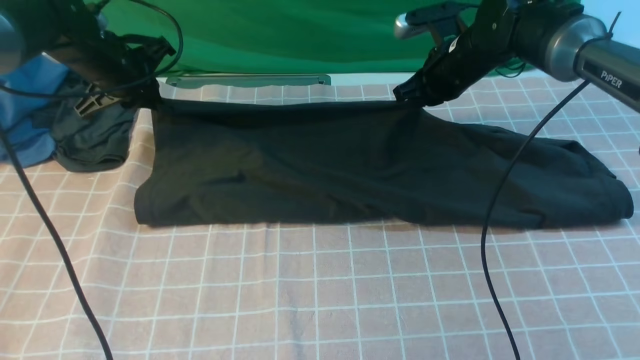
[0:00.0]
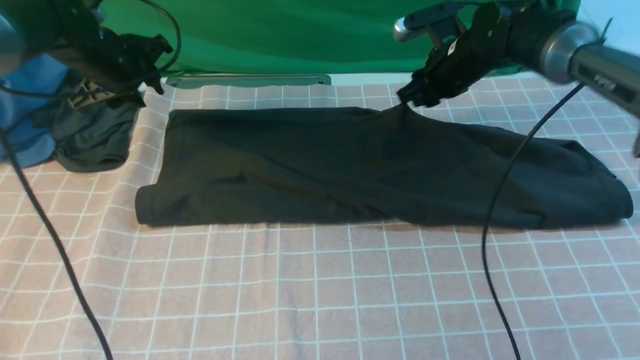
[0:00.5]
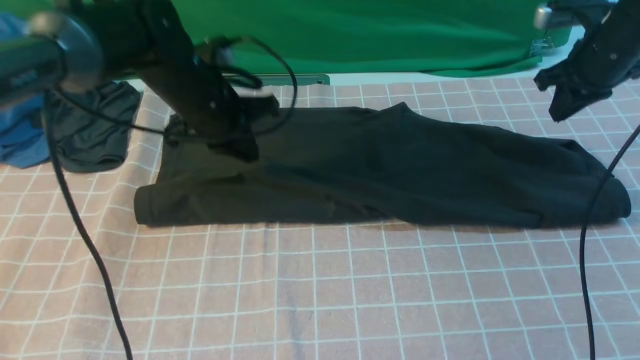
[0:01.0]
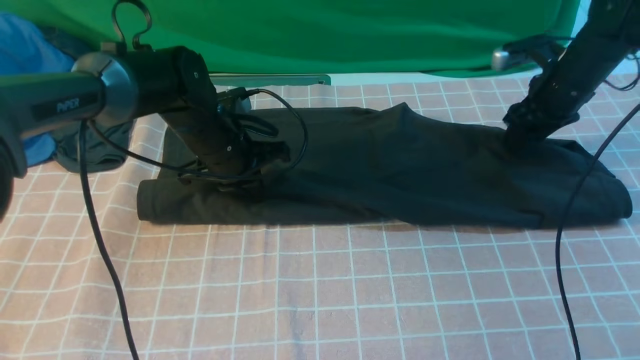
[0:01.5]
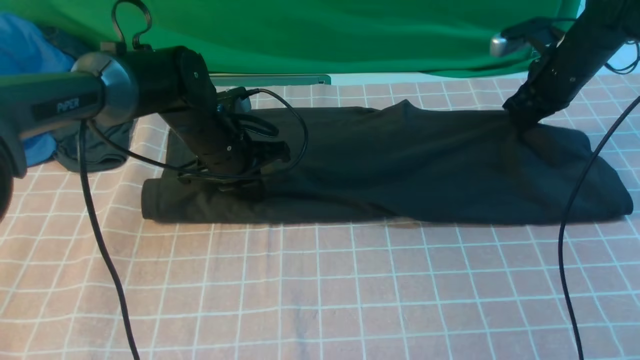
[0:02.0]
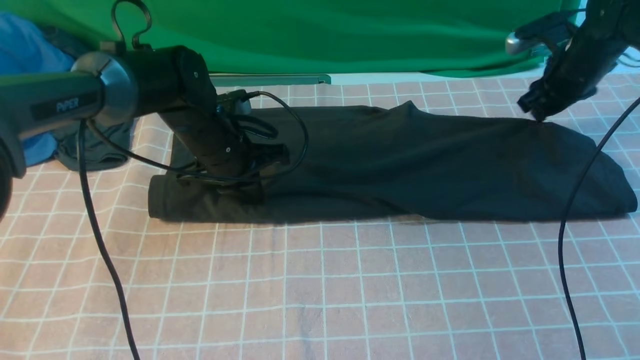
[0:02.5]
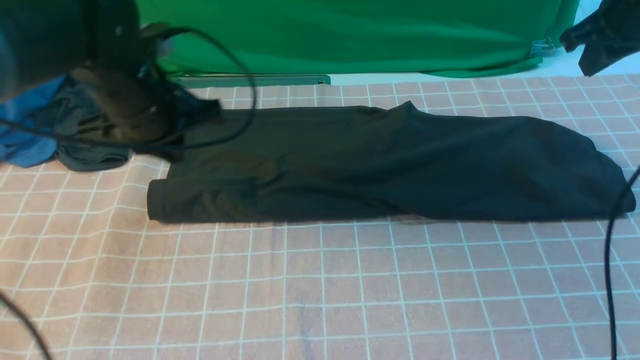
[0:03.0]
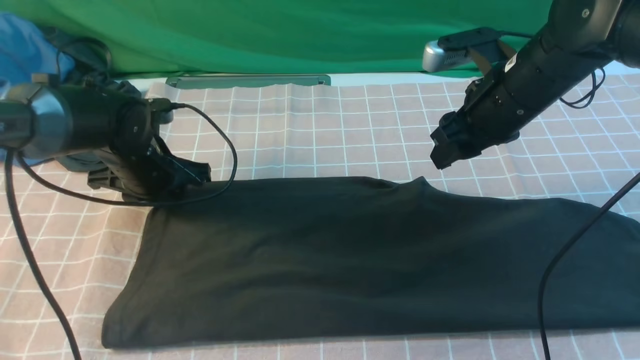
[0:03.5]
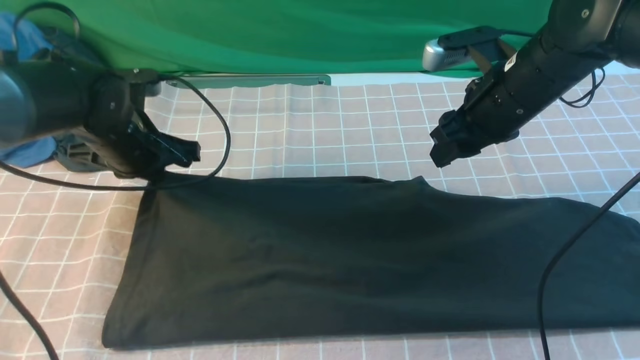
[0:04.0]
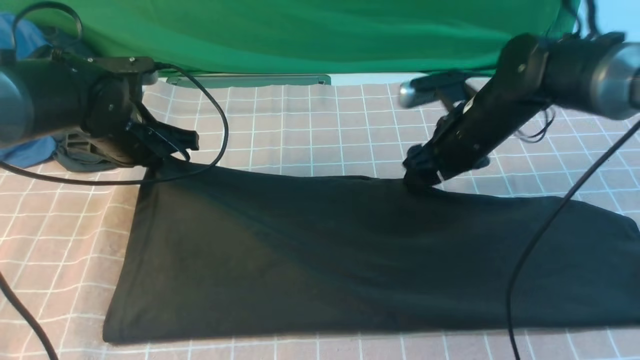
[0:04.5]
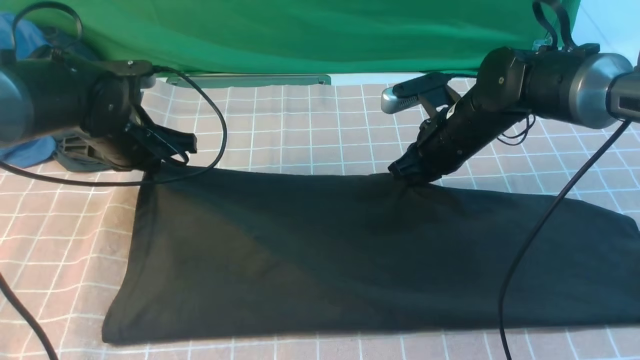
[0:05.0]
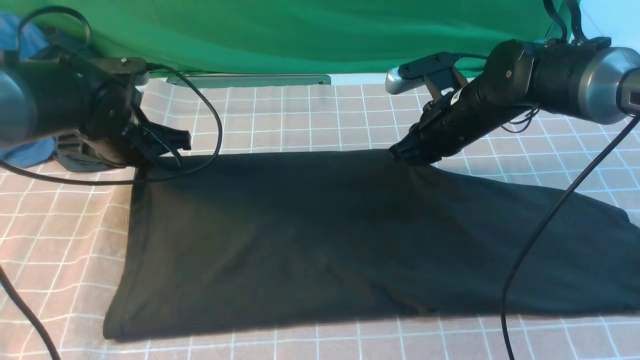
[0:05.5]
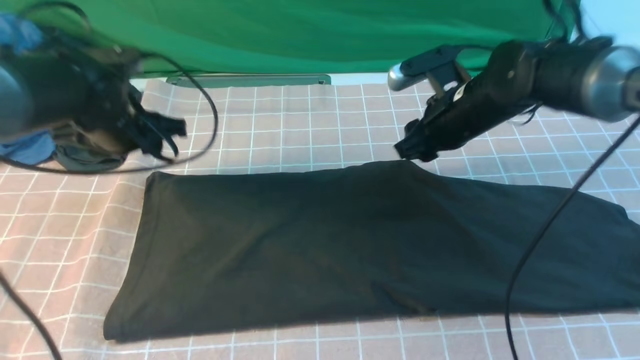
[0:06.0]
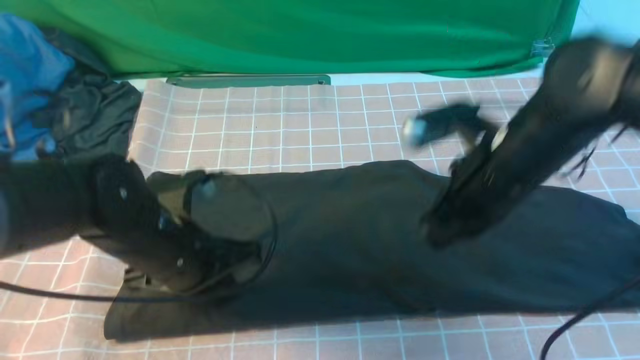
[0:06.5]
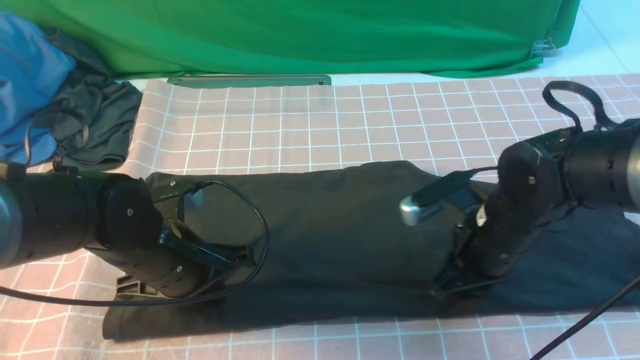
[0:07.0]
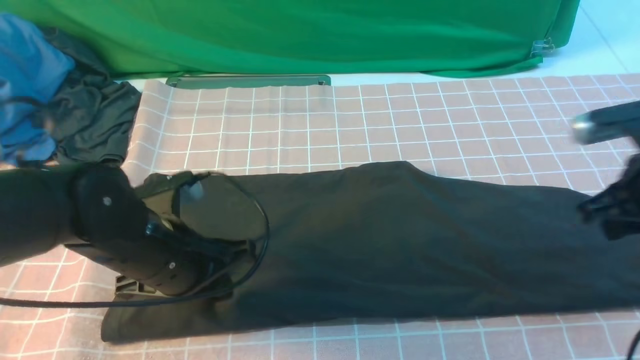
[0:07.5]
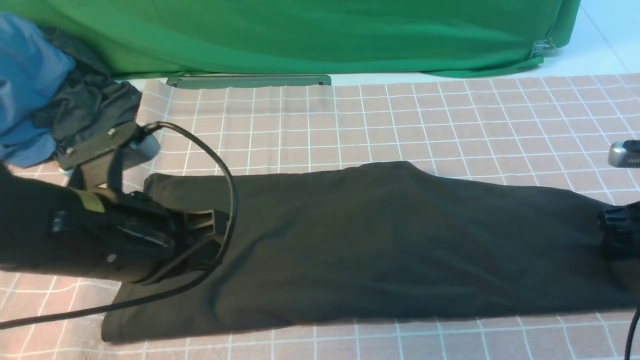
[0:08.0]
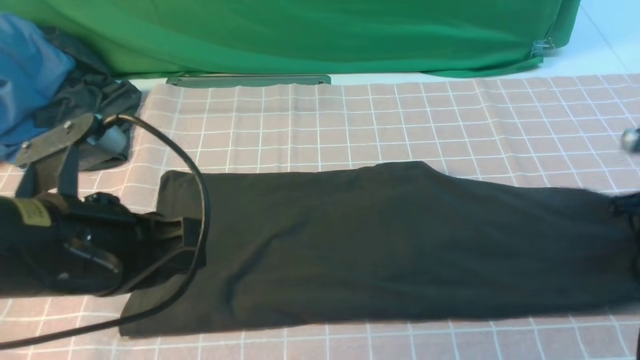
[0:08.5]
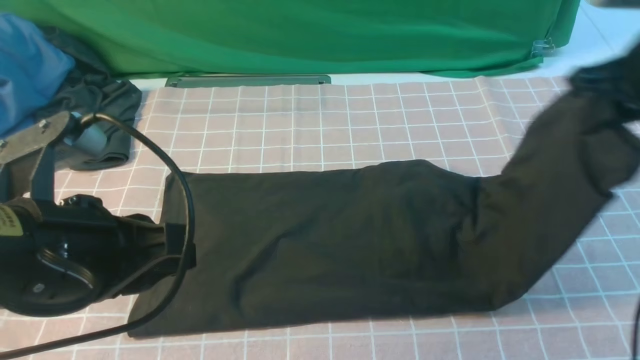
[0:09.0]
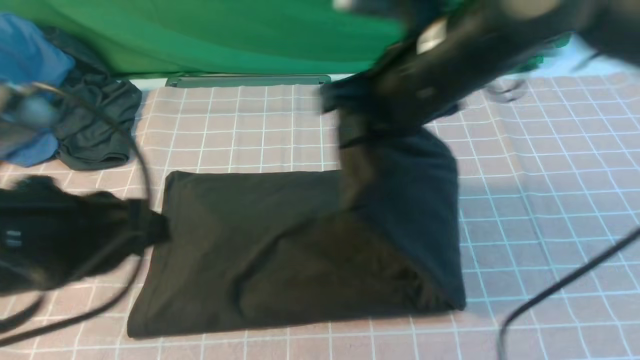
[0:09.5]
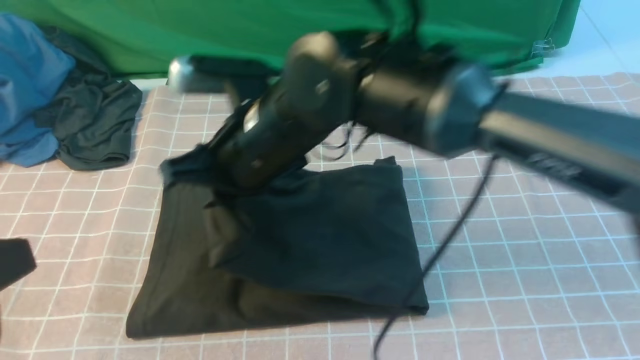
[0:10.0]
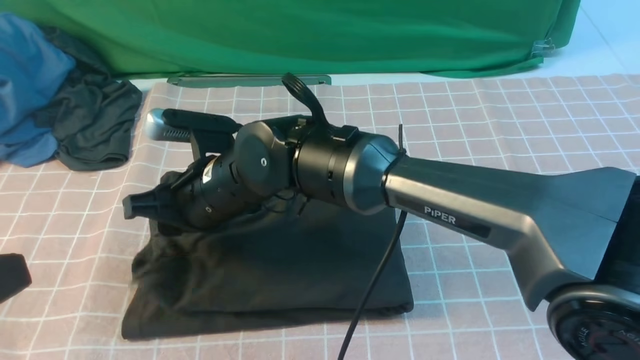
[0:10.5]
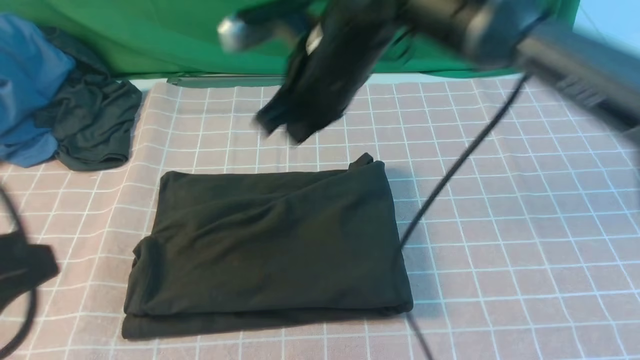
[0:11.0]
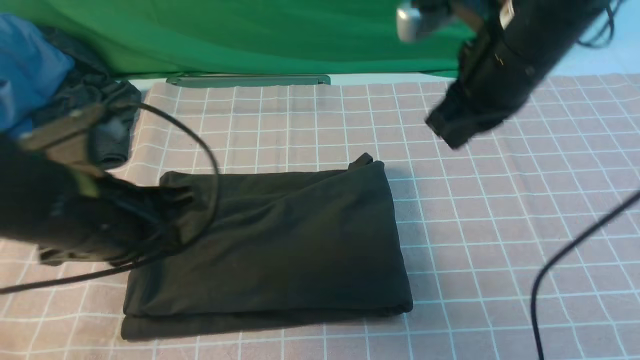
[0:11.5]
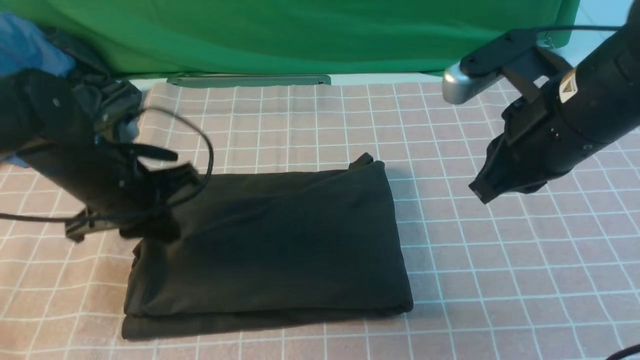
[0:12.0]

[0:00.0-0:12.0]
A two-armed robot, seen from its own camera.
Step, 0:01.0 to 0:08.5: use the right arm to clamp the right edge of the fabric.
Step, 0:09.0 to 0:10.5: use the right arm to drag the right edge of the fabric to the left and folds it over the left edge.
0:00.0 to 0:02.0: The right gripper is displaced to the right by some 15 cm, and opens, then closes once more. Meanwhile the left gripper heads to the right, backward and downward, covering about 15 cm.
0:02.0 to 0:04.0: The left gripper is displaced to the left by some 10 cm, travels upward and back again, some 10 cm each way, and opens, then closes again, while the right gripper travels to the left, backward and upward by about 15 cm, and opens up.
0:04.0 to 0:06.0: The left gripper opens its fingers. Meanwhile the right gripper closes, then reopens.
0:06.0 to 0:08.0: The left gripper heads backward, covering some 15 cm, and closes its fingers; the right gripper travels to the right and backward by roughly 25 cm, and opens up.
0:08.0 to 0:10.0: The left gripper heads backward, upward and to the left, covering approximately 15 cm; the right gripper shifts roughly 40 cm to the left, and closes up.
0:10.0 to 0:12.0: The left gripper moves forward and downward, approximately 30 cm, while the right gripper travels to the right by about 25 cm, and opens and closes again.

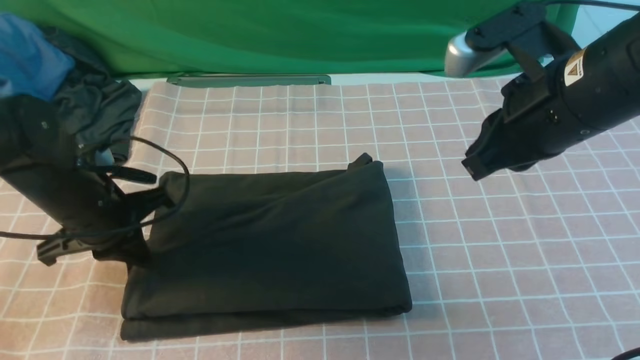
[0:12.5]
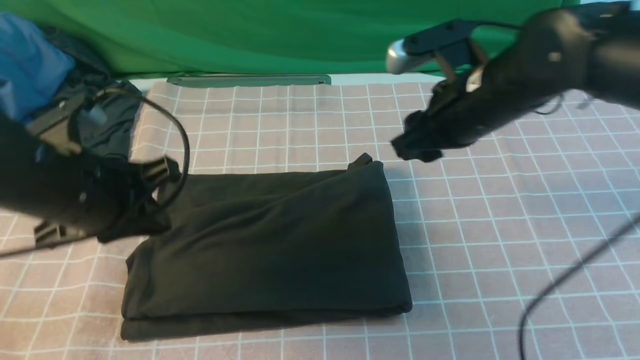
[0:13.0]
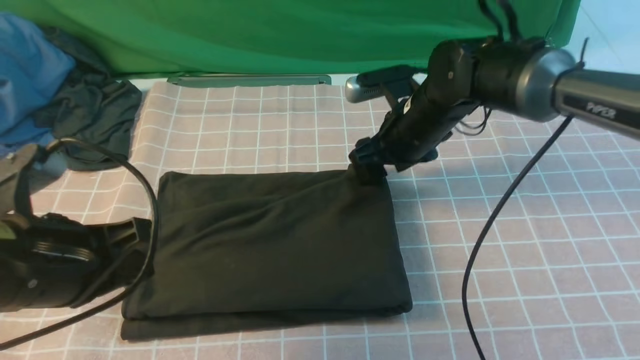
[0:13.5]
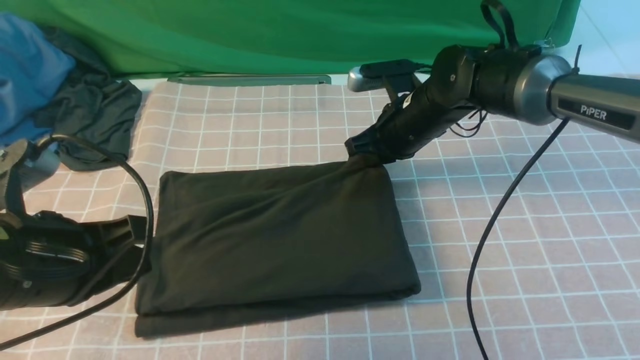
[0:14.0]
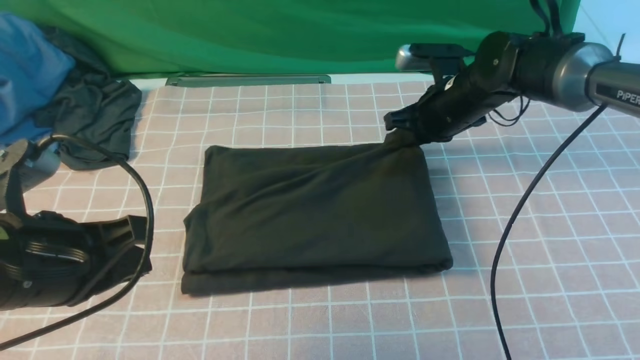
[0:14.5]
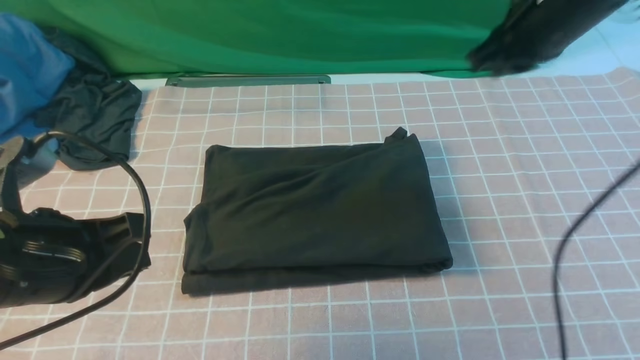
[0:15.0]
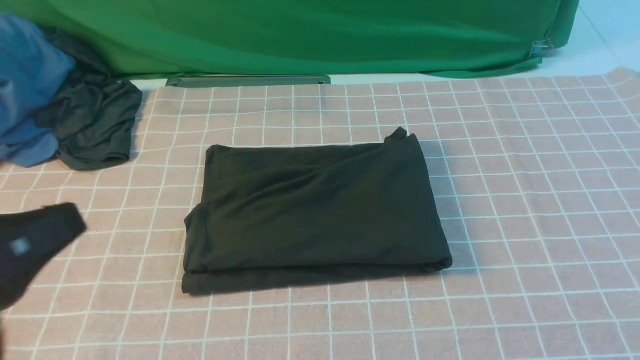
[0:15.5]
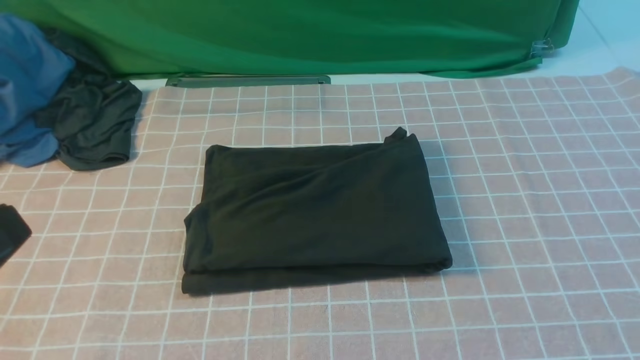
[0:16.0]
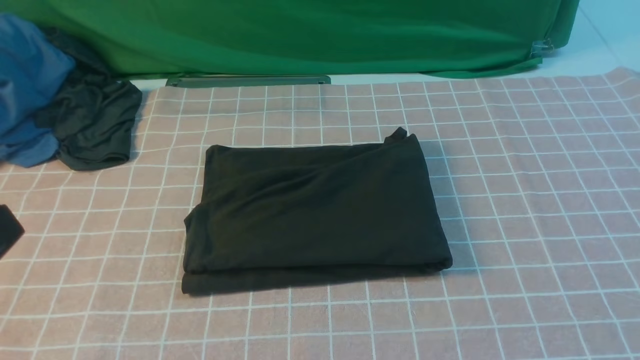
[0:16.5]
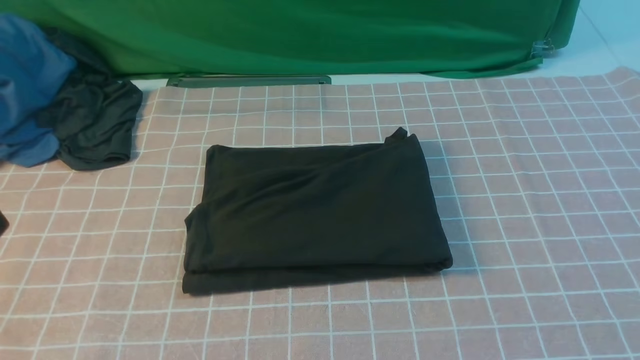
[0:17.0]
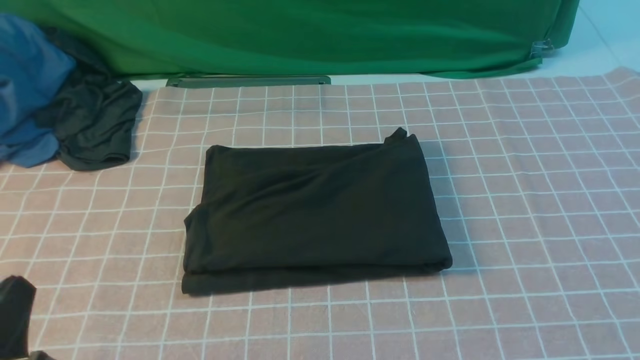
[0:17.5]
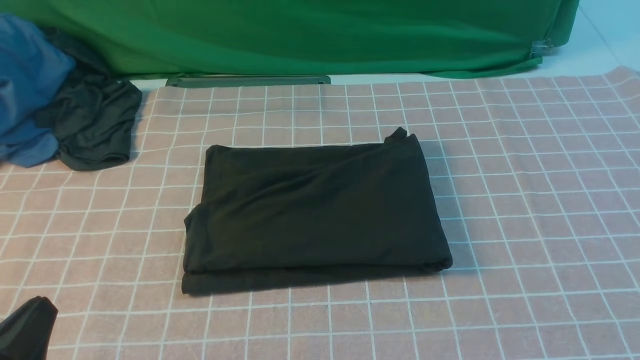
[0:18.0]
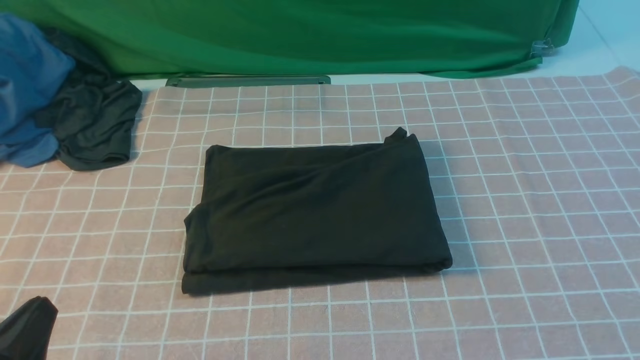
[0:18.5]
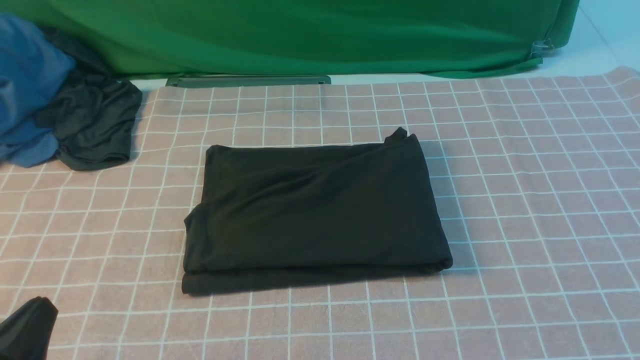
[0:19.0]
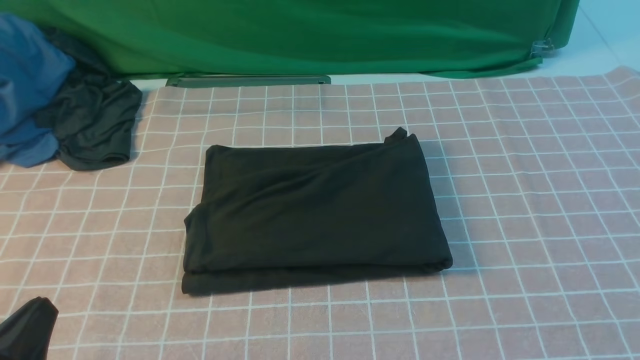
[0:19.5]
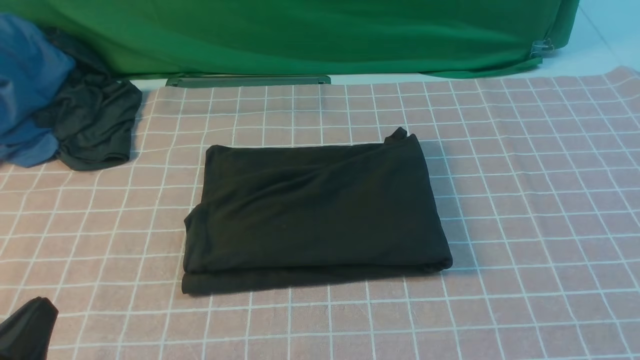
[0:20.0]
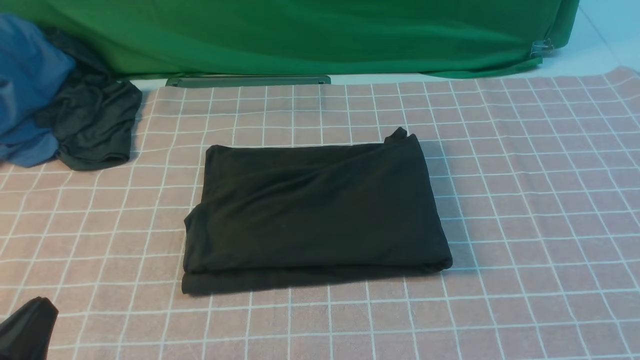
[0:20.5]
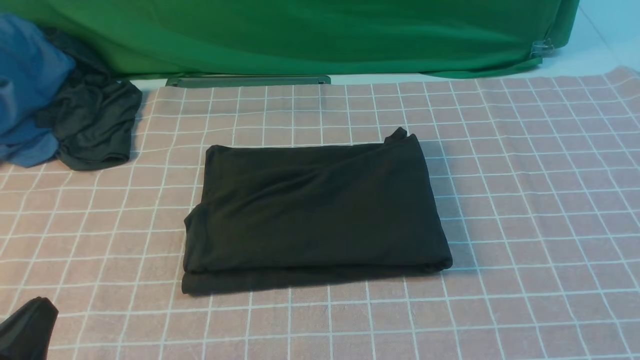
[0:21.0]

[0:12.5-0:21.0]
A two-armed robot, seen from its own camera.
0:12.5 to 0:14.5: The left gripper heads backward and upward, covering about 15 cm, while the right gripper goes approximately 20 cm forward and downward, and opens and closes again.
0:14.5 to 0:16.5: The right gripper goes about 50 cm backward, while the left gripper shifts some 15 cm backward and upward.
0:16.5 to 0:19.0: The left gripper travels downward by about 15 cm.
